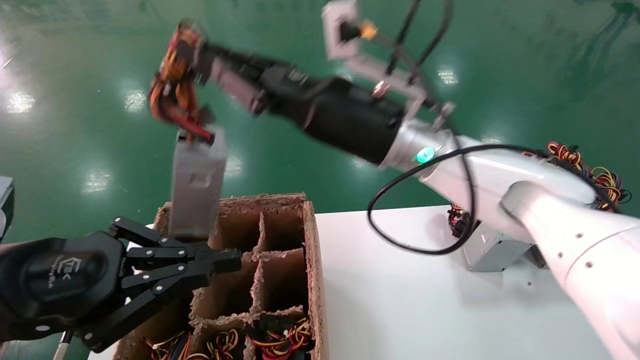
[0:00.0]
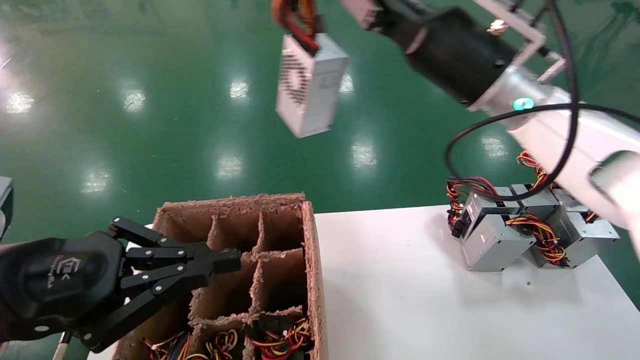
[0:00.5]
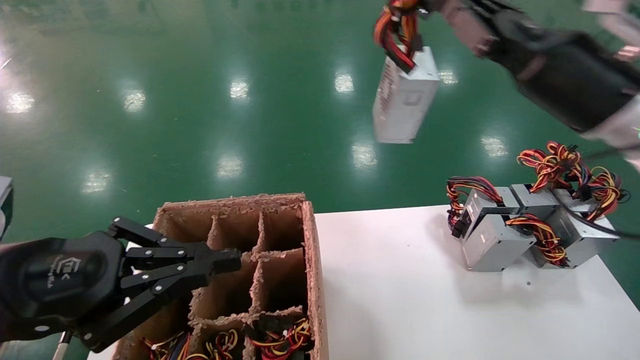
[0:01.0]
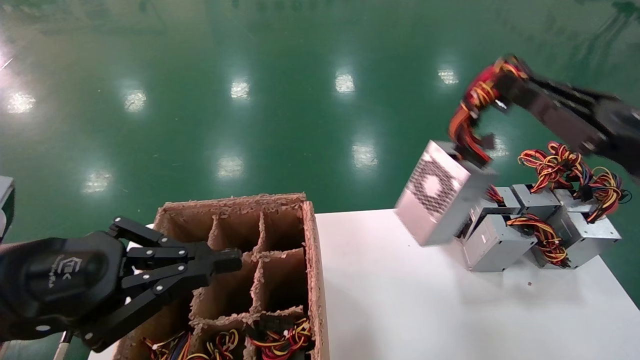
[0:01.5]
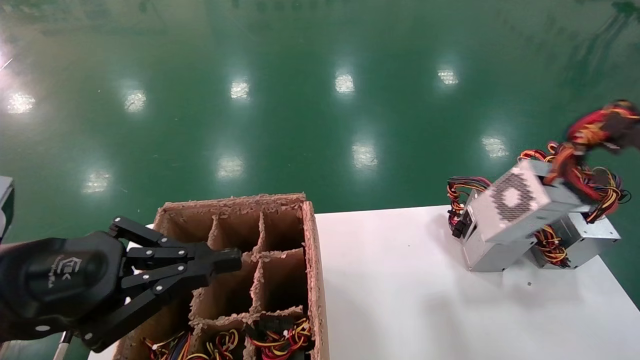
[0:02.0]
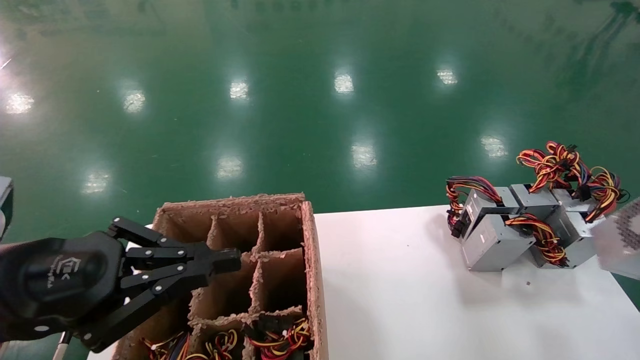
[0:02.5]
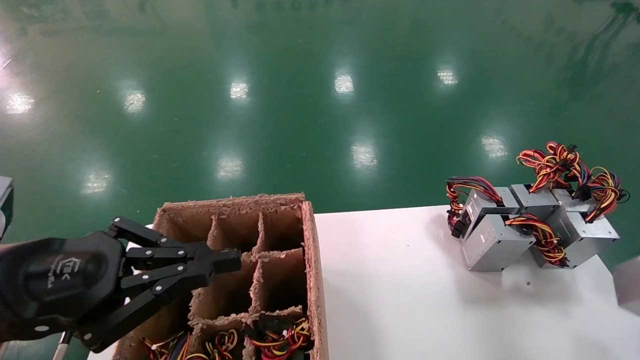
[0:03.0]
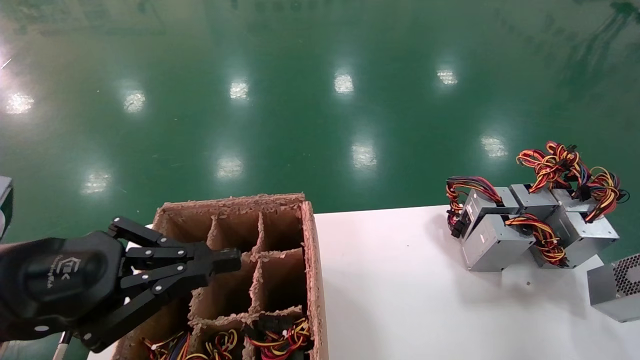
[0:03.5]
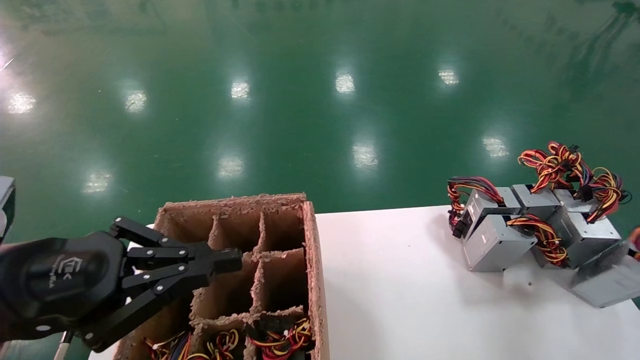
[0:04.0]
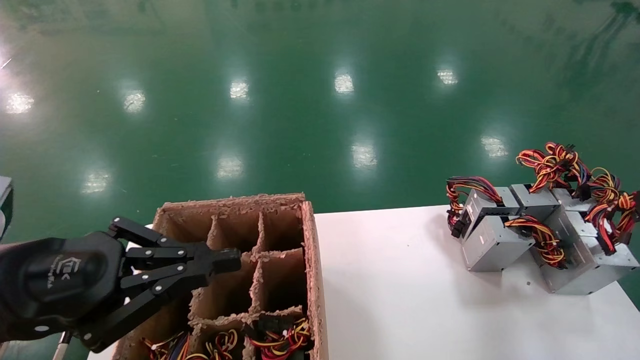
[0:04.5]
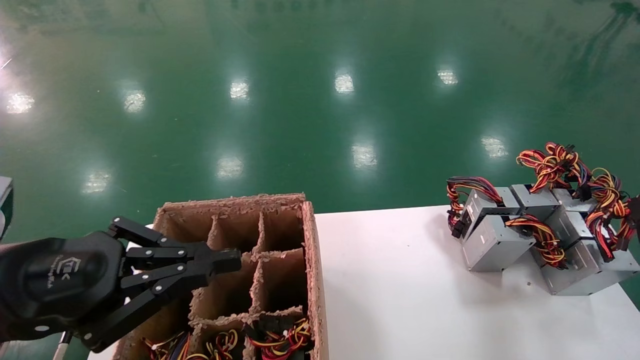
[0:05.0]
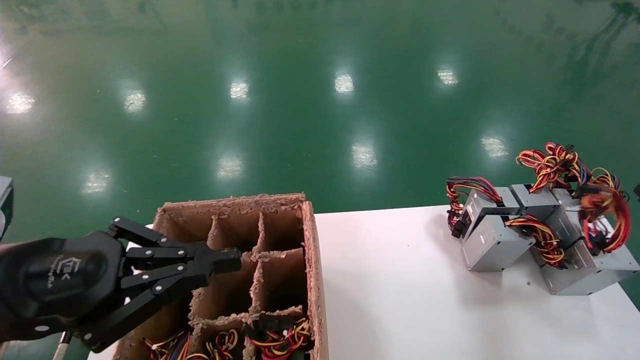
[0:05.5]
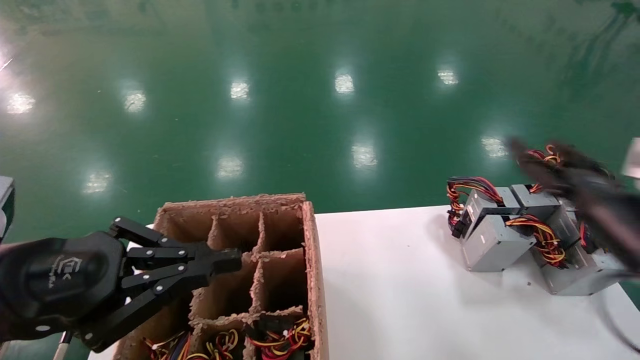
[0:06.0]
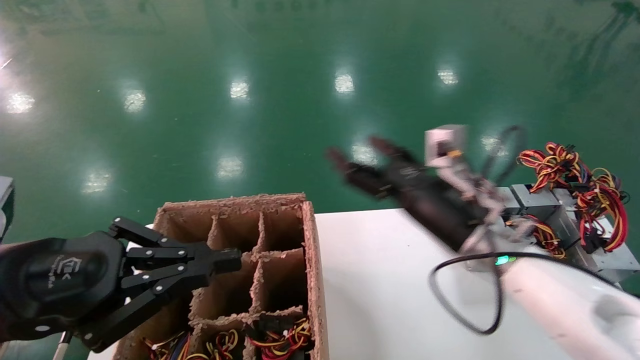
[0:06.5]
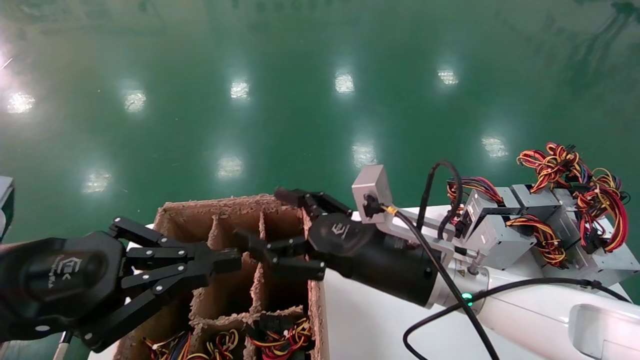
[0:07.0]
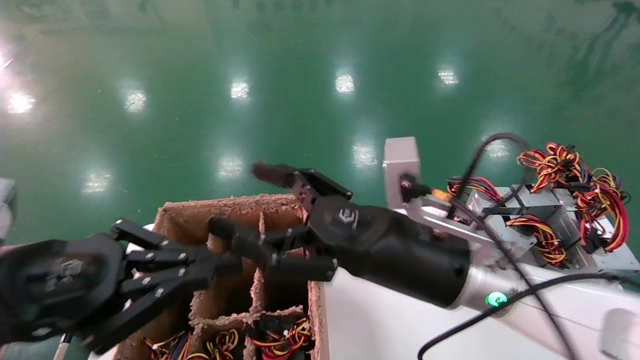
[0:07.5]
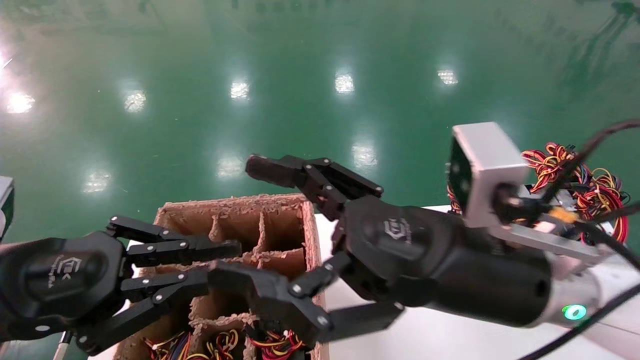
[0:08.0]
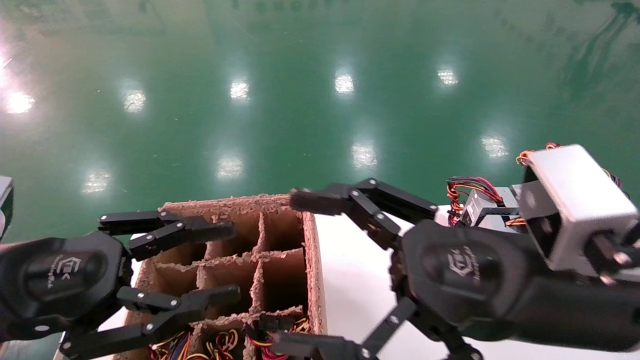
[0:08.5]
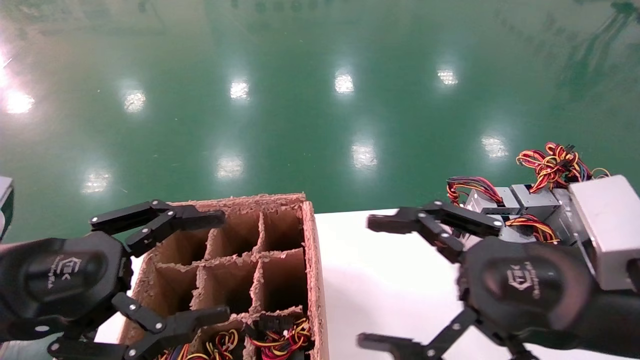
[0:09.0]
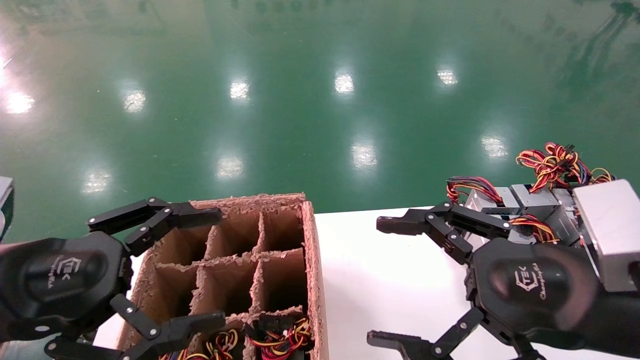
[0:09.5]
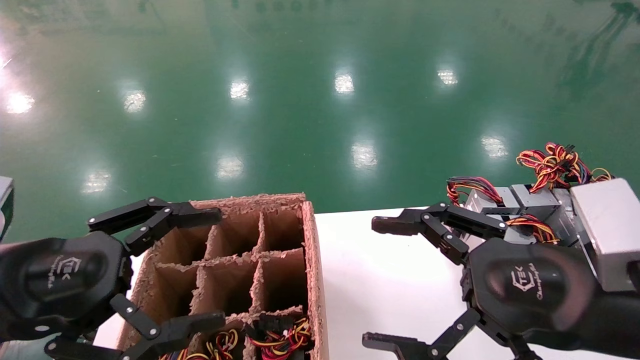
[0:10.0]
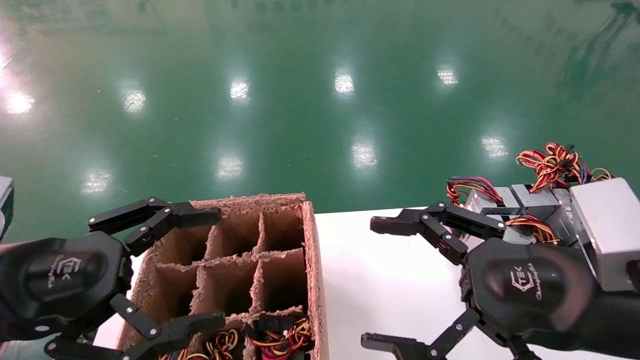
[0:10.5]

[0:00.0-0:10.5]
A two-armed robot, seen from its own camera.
Step, 0:00.0 to 0:05.5: Place the main unit power supply in the designated area.
0:00.0 to 0:02.0: The right gripper is displaced to the right and backward by approximately 40 cm.
0:02.0 to 0:04.0: The right gripper travels downward and to the right by approximately 15 cm.
0:04.0 to 0:06.5: The right gripper goes some 35 cm to the left, and opens.
0:06.5 to 0:08.5: The left gripper opens. The right gripper is displaced backward by roughly 15 cm.
0:08.5 to 0:10.5: The left gripper opens, while the right gripper moves to the right, approximately 5 cm.

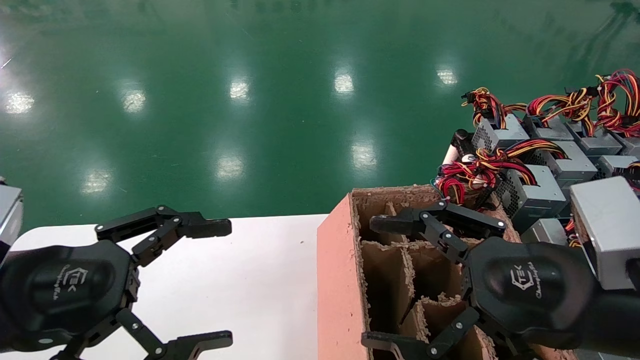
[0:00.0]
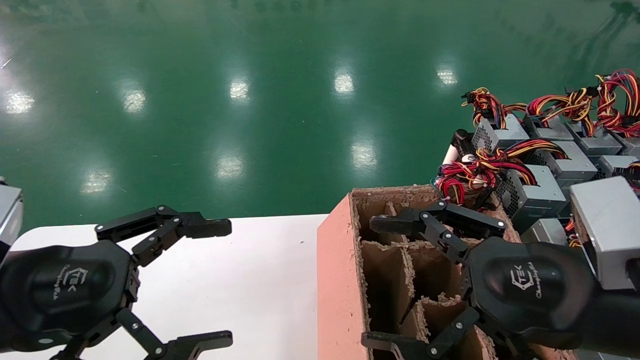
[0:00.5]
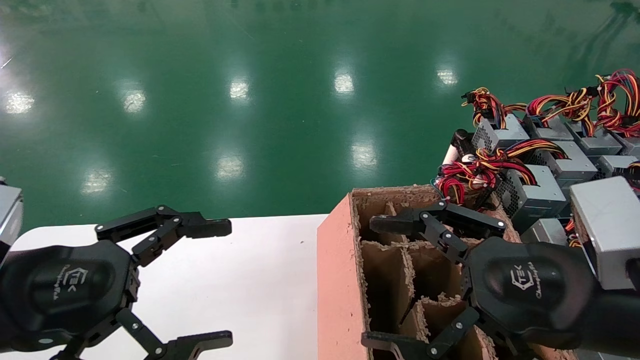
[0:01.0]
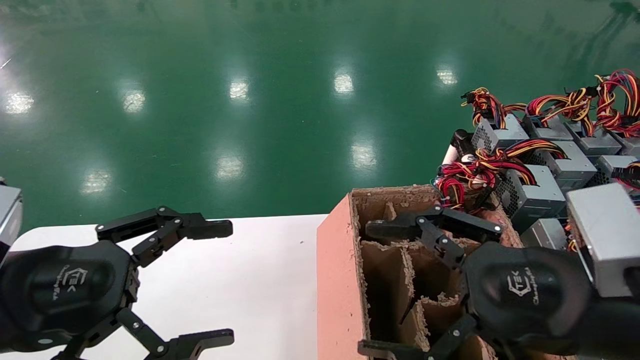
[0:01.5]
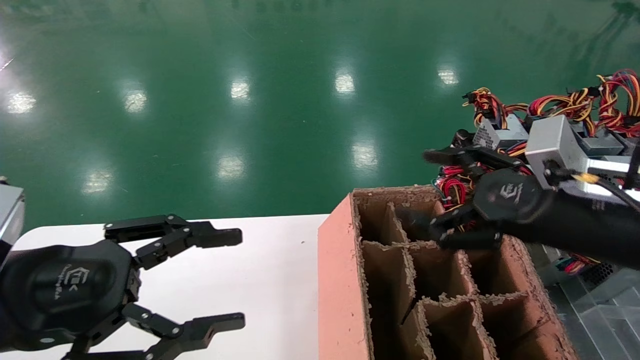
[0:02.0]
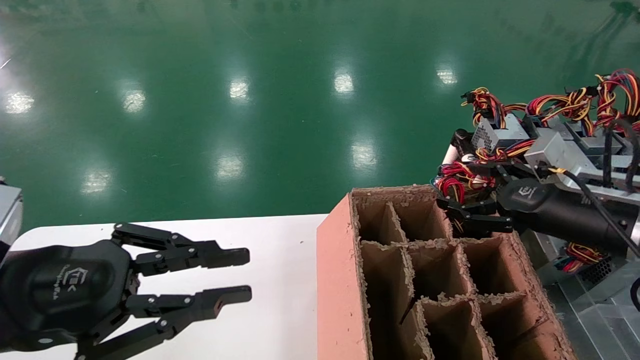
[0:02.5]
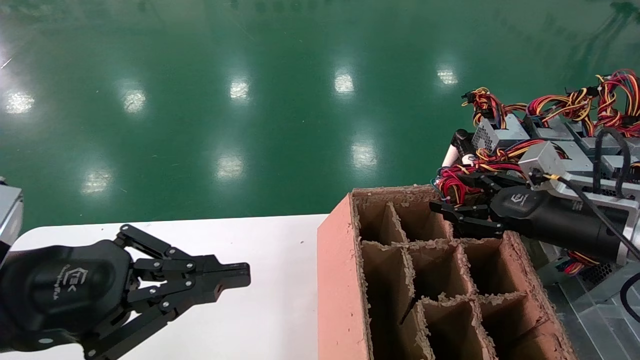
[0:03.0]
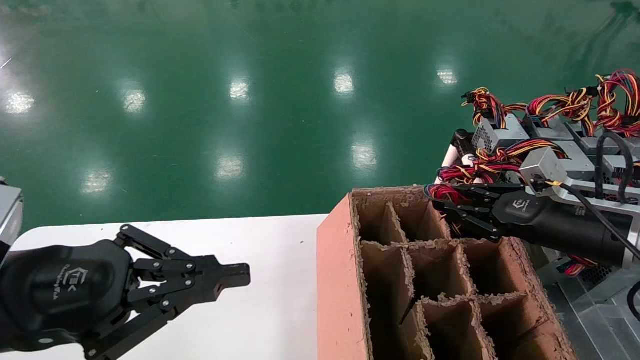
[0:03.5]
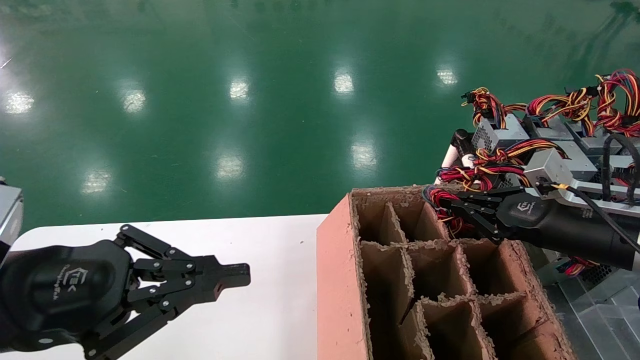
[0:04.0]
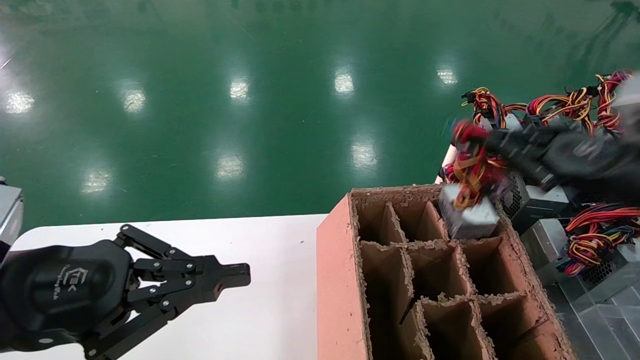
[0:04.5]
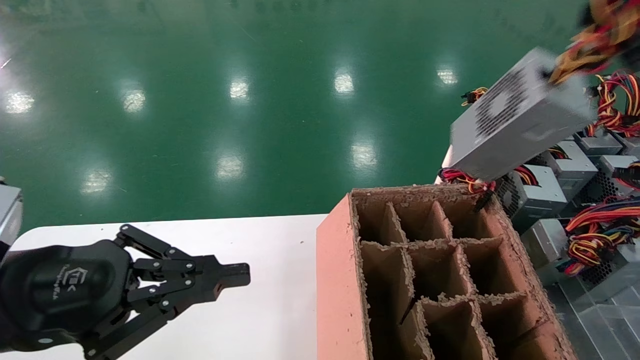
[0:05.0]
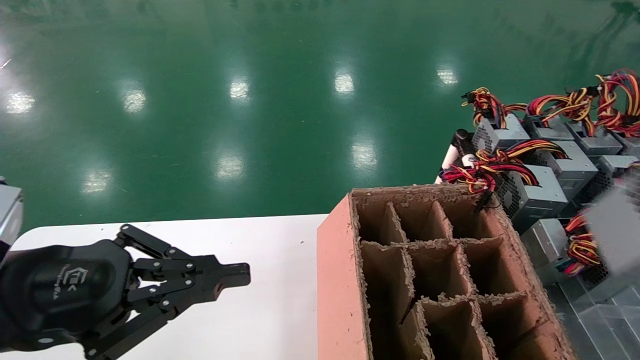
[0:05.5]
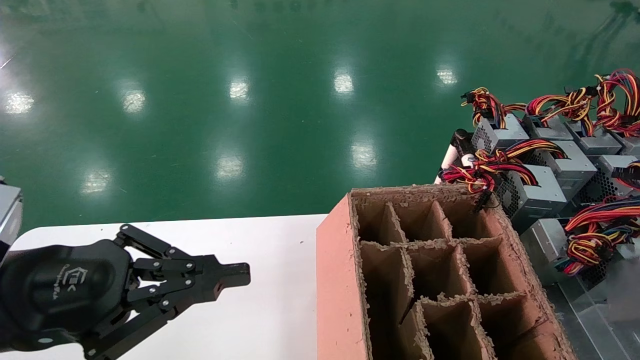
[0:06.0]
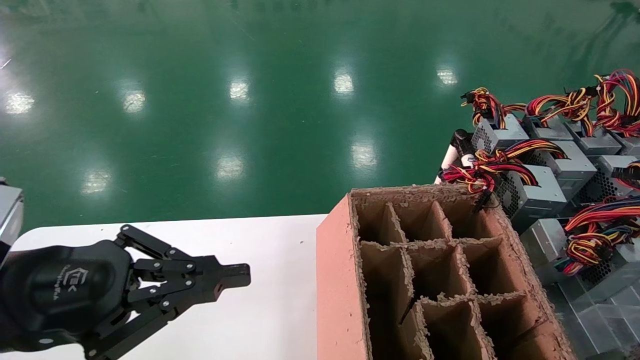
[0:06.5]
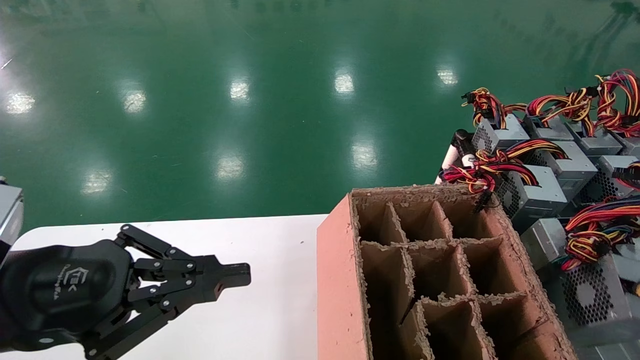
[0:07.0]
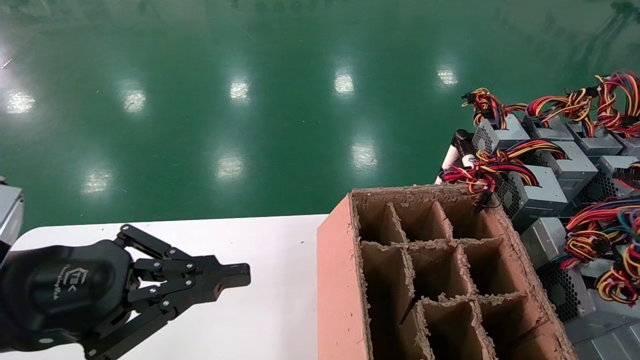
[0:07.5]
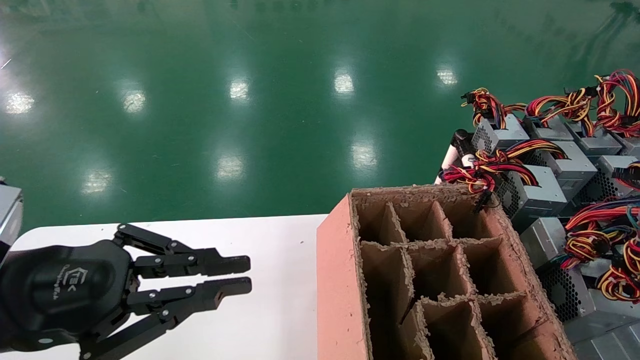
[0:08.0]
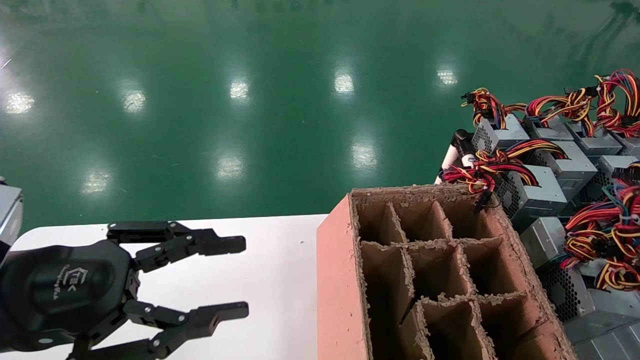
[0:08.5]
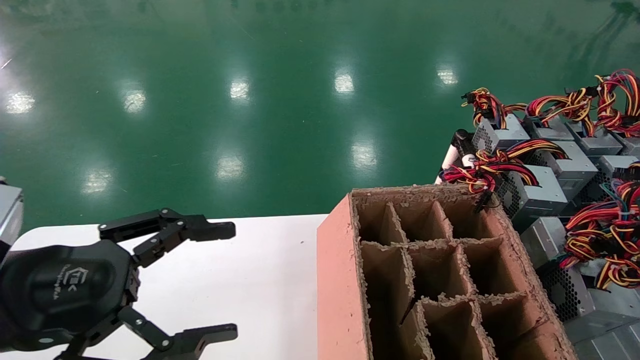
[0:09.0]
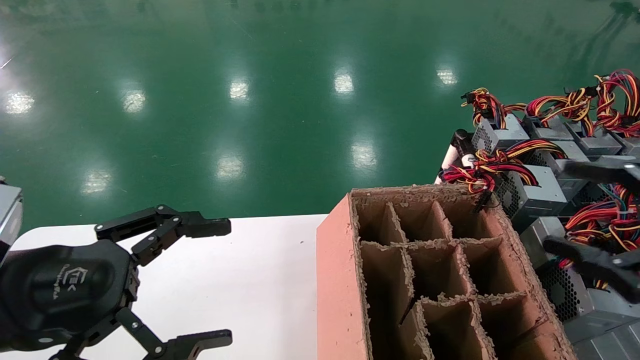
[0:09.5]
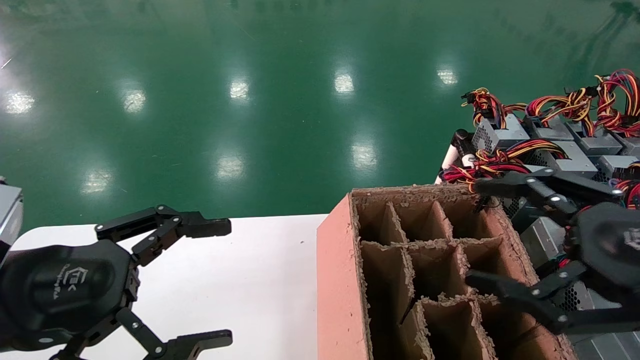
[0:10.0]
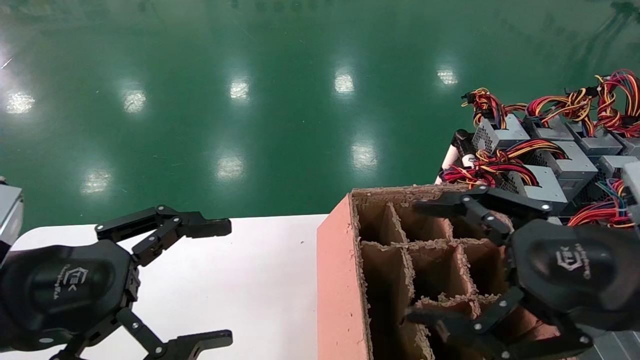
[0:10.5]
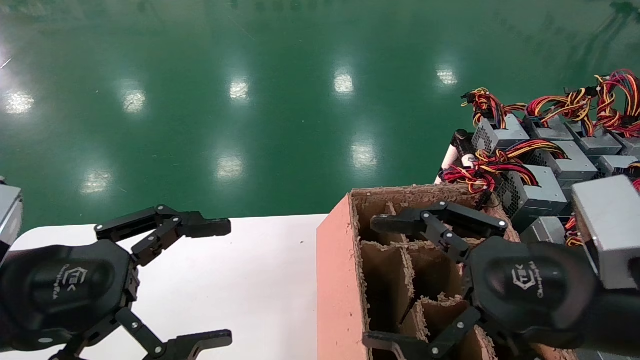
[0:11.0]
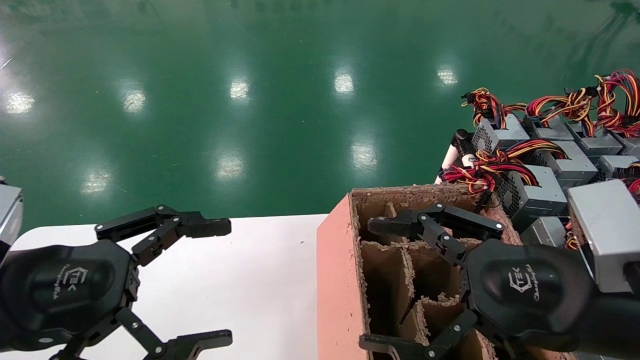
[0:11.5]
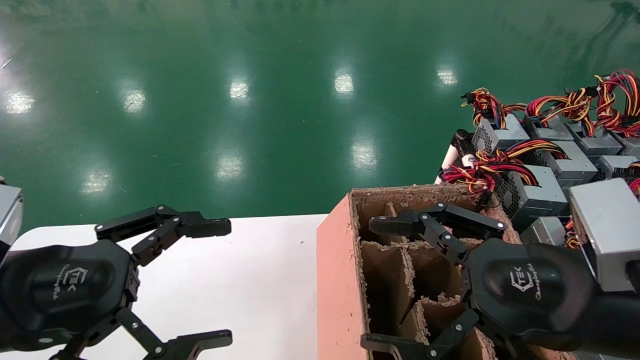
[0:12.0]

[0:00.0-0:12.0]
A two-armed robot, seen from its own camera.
Step, 0:02.0 to 0:04.0: Grab the main unit power supply from the containment box.
Step, 0:04.5 to 0:08.0: Place the main unit power supply in the designated area.
0:00.0 to 0:02.0: The right gripper goes some 10 cm forward.
0:02.0 to 0:04.0: The right gripper travels to the right and forward by about 10 cm, and closes up, while the left gripper closes up.
0:04.0 to 0:06.0: The right gripper travels backward and to the right by about 35 cm.
0:06.0 to 0:08.0: The right gripper shifts approximately 15 cm forward and downward.
0:08.0 to 0:10.0: The right gripper is displaced to the left and forward by some 20 cm, and opens; the left gripper opens.
0:10.0 to 0:12.0: The right gripper heads to the left, covering some 10 cm.
